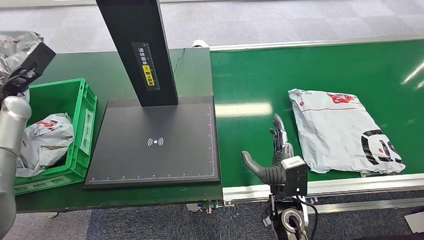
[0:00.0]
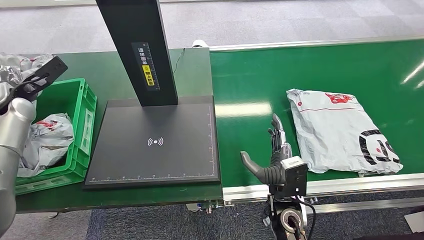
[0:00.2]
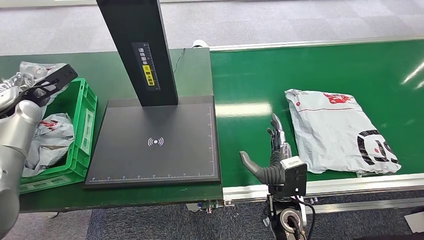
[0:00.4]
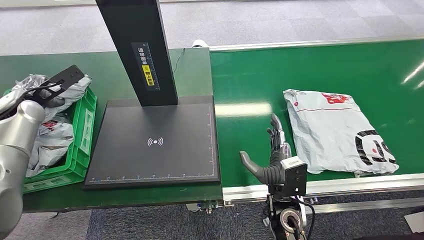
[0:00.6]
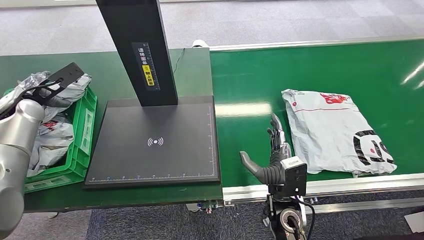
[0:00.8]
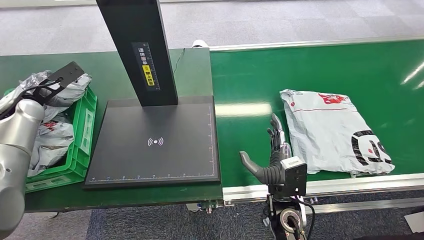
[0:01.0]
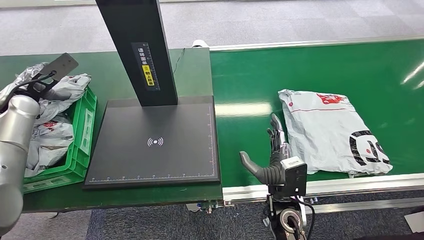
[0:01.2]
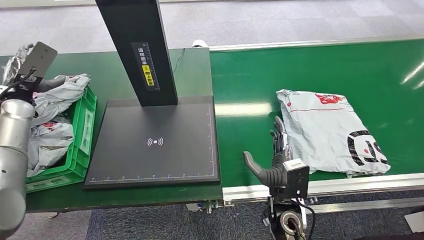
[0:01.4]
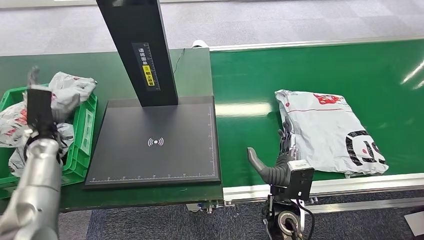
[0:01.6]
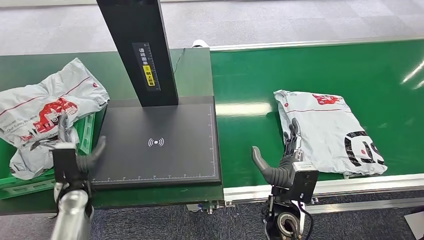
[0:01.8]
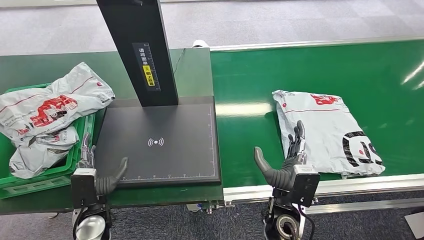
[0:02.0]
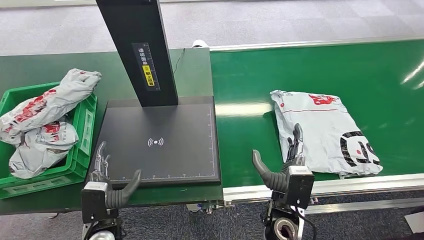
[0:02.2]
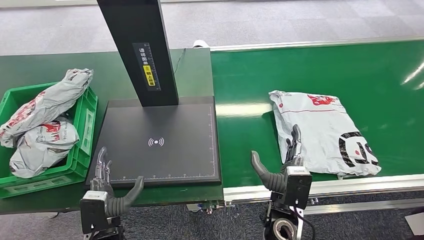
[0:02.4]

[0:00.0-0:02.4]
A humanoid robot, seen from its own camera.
Step, 0:00.0 to 0:02.4: Place the package into the parcel locker.
0:01.2 to 0:02.4: The left hand shifts roughly 40 cm backward, to the right and downward.
